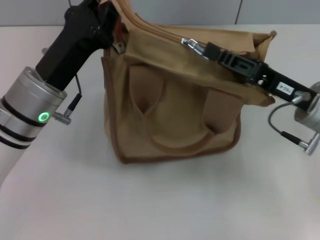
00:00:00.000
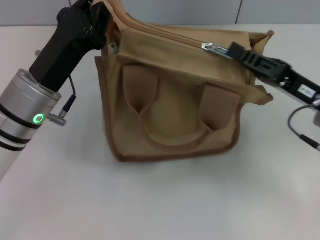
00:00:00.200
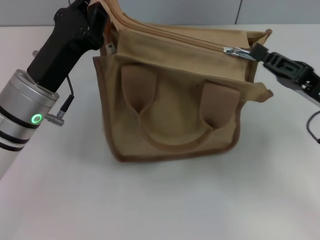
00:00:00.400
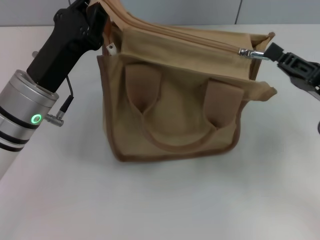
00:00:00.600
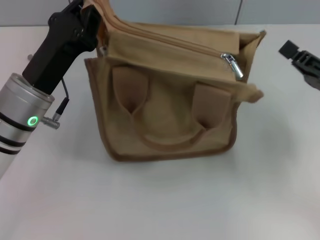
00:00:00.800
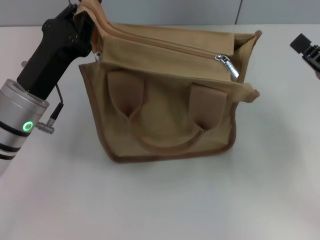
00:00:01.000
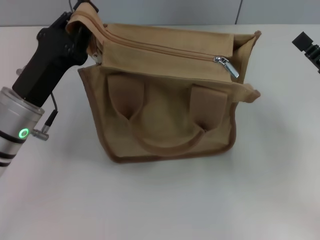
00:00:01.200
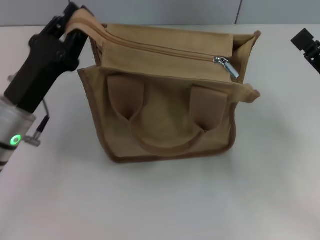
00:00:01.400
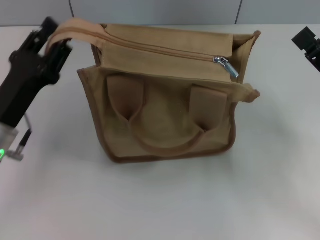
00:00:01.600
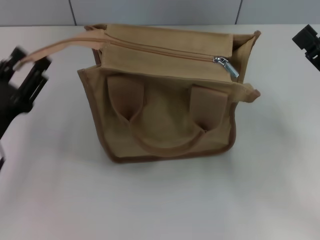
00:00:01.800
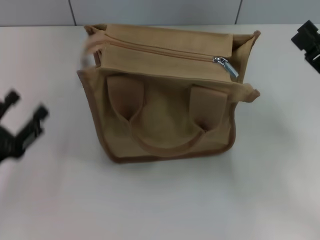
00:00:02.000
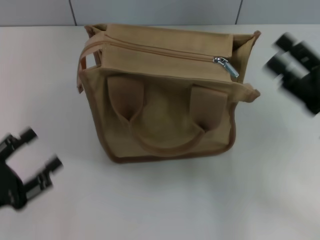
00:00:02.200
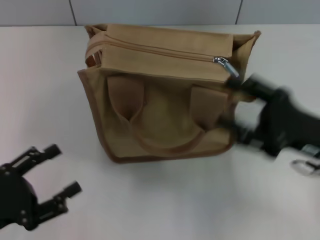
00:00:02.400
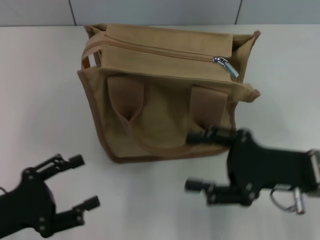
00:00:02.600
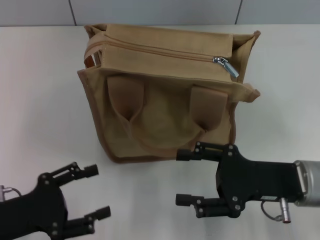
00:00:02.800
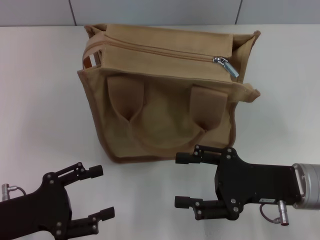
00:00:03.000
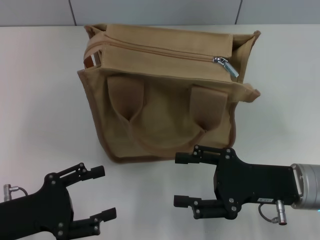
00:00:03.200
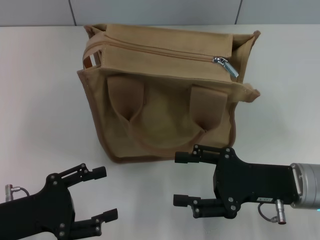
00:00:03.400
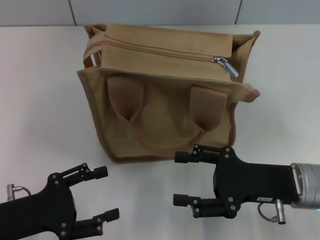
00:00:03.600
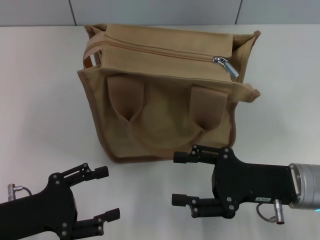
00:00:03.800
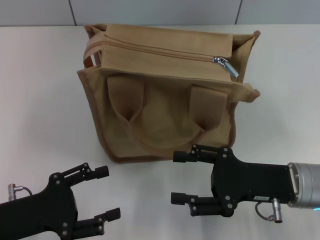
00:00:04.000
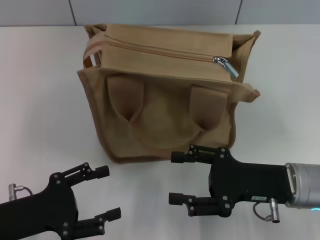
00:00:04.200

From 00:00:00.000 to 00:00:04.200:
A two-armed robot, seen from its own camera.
Step, from 00:00:00.800 to 00:00:01.800: Grab the zipper with your left hand.
From 00:00:00.000 to 00:00:01.400: The right gripper travels to the right by about 5 cm, and opens; the left gripper changes place by about 5 cm.
From 00:00:01.400 to 00:00:02.800: The right gripper heads to the left, covering some 10 cm, and opens up. Meanwhile the left gripper goes some 10 cm backward and to the left, and opens up.
From 00:00:02.800 to 00:00:04.200: Both grippers stay put.

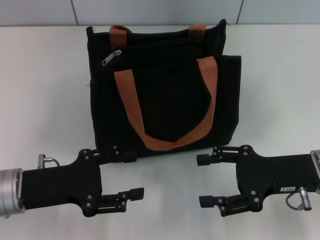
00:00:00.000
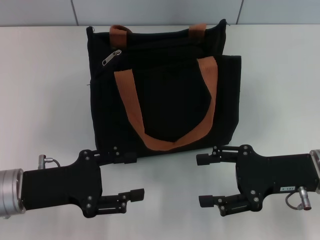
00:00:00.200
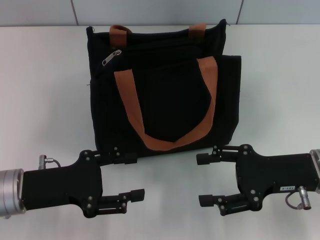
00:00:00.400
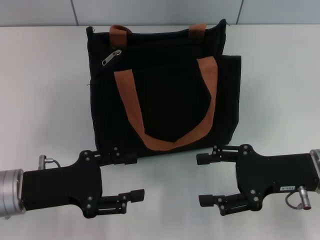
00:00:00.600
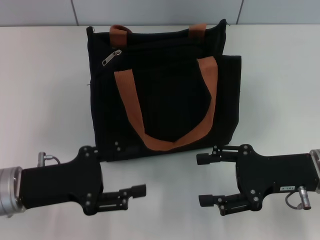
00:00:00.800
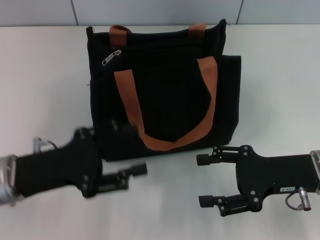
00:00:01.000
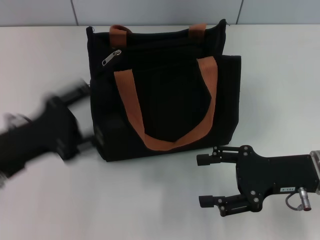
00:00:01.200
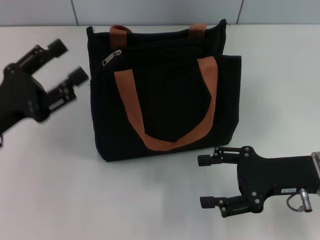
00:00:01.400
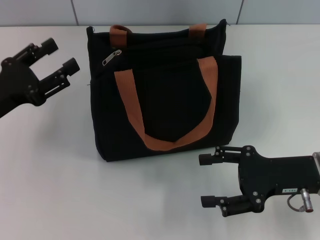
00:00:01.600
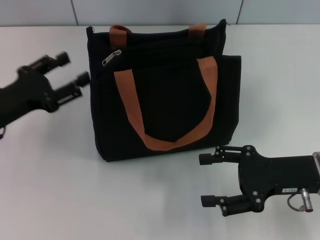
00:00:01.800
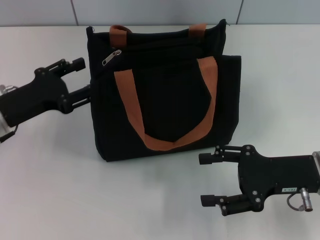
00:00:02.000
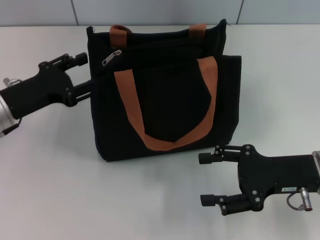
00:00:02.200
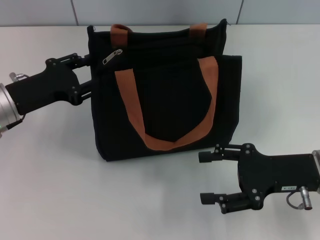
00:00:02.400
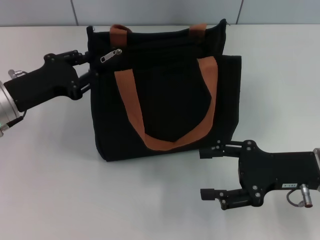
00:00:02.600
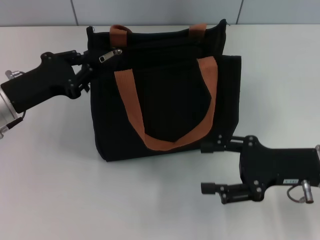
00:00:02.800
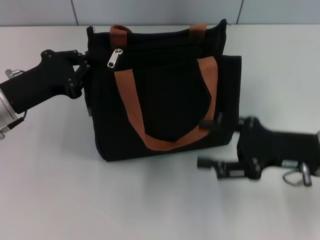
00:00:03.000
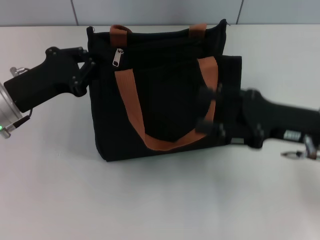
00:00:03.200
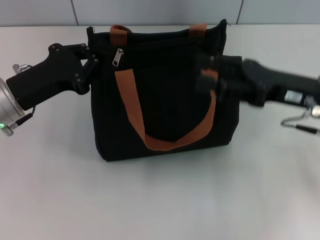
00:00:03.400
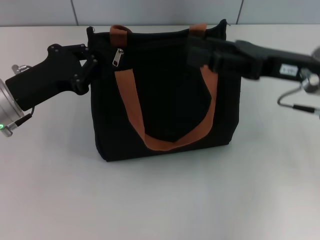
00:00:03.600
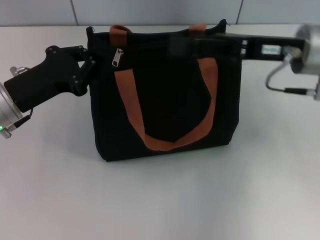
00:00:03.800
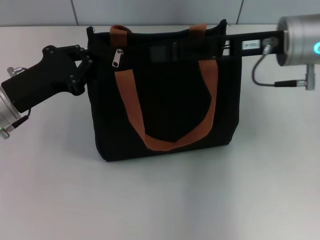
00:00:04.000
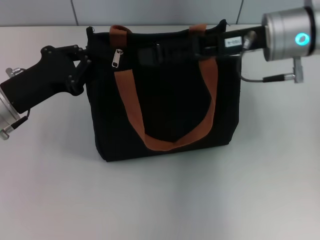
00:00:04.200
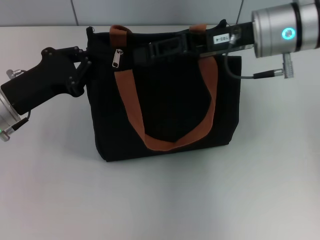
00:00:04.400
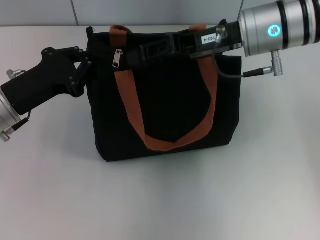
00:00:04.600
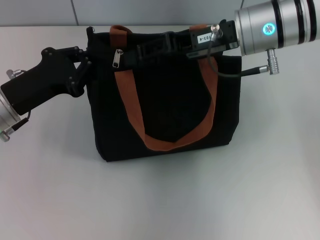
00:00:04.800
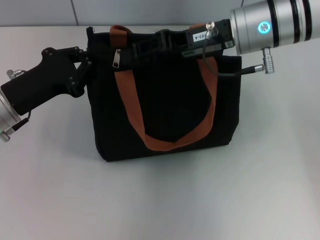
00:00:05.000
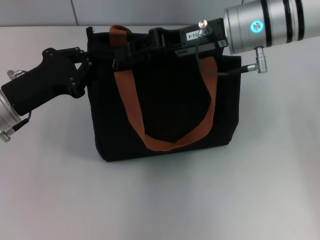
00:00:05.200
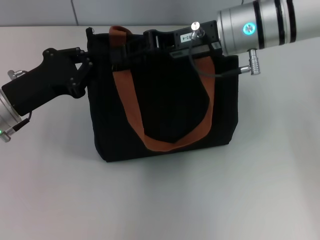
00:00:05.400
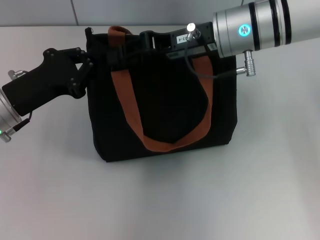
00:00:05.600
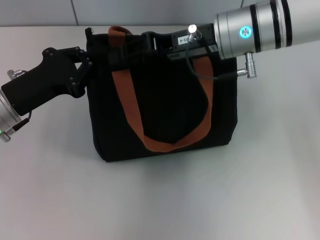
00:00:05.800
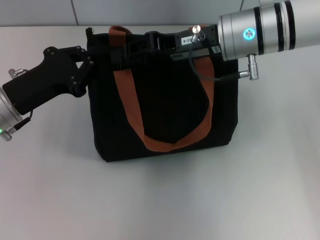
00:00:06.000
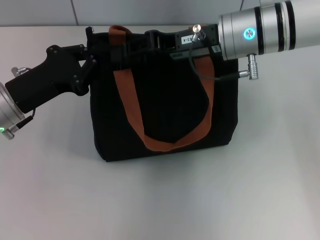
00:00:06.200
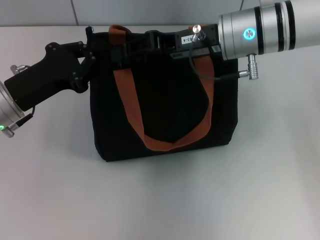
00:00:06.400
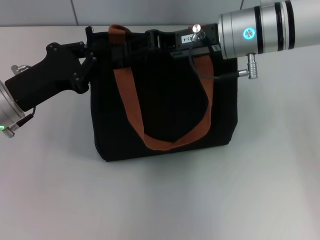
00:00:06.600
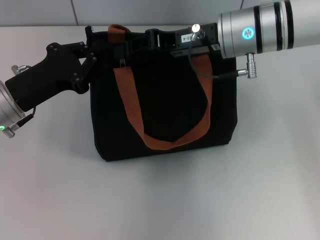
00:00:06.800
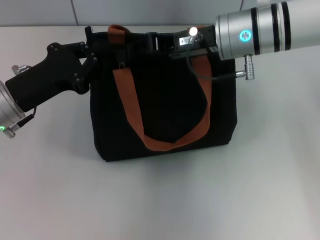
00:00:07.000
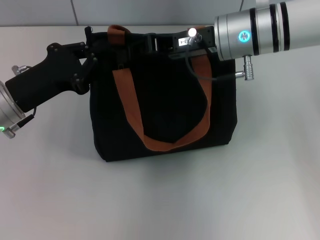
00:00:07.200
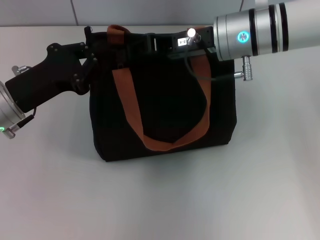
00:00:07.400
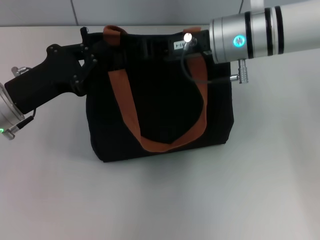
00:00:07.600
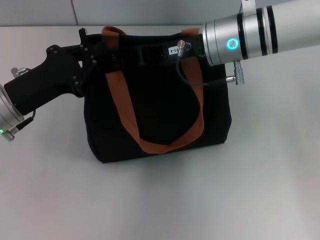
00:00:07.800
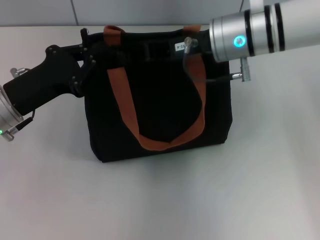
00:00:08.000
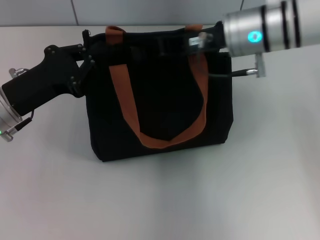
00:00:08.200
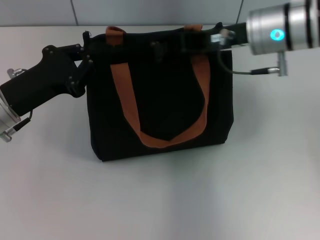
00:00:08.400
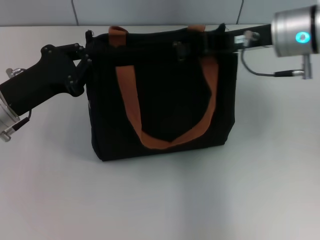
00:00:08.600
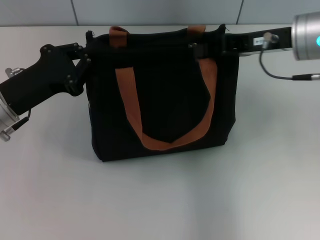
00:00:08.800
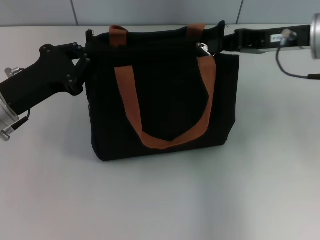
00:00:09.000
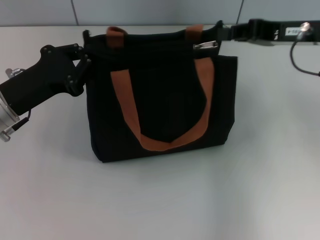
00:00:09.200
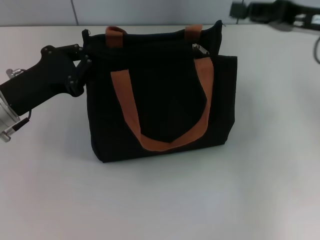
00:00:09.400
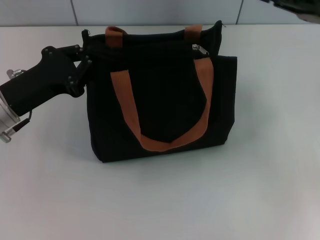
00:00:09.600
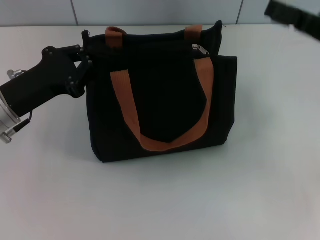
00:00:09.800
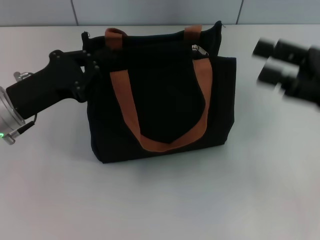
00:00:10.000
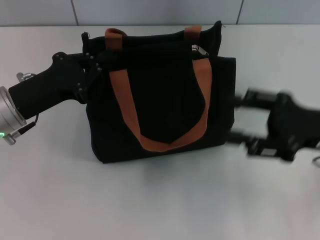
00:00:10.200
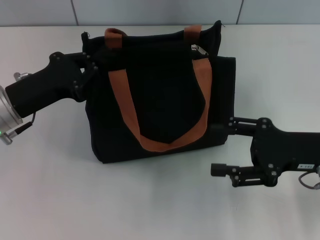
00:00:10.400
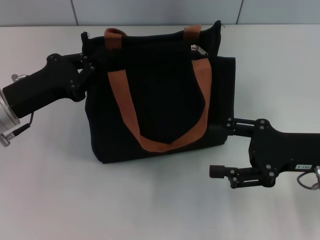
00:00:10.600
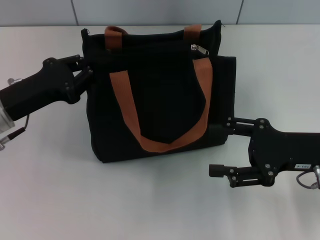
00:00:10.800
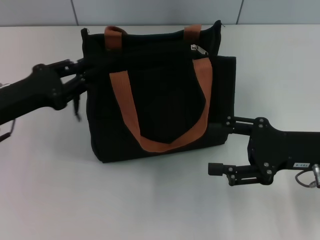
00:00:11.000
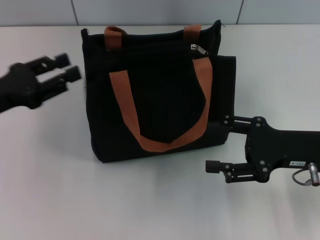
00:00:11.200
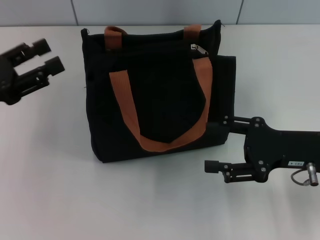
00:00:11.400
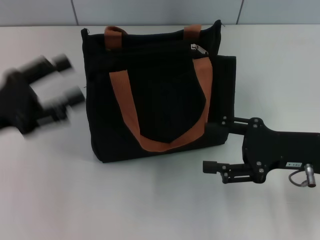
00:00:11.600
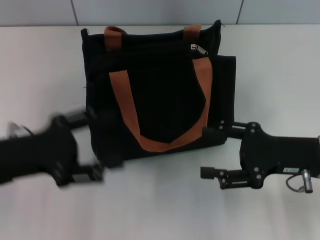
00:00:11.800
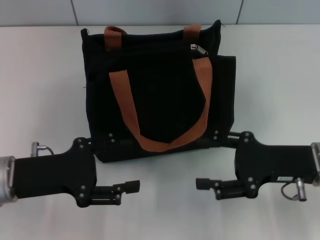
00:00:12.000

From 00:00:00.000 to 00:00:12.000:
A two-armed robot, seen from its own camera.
Step, from 00:00:00.000 to 00:00:09.200: Pull up the zipper with your right hand.
Step, from 00:00:09.400 to 00:00:11.000: Grab the zipper with your left hand.
From 00:00:00.000 to 00:00:01.600: The left gripper is displaced to the left by approximately 5 cm.
From 00:00:01.600 to 00:00:03.000: The left gripper closes up.
From 00:00:03.000 to 00:00:04.400: The right gripper goes some 20 cm forward, upward and to the left.
From 00:00:04.400 to 00:00:07.600: The grippers stay close to where they were, moving slightly.
From 00:00:07.600 to 00:00:09.000: The right gripper heads to the right, covering about 10 cm.
From 00:00:09.000 to 00:00:10.400: The right gripper moves backward and downward, approximately 15 cm, and opens up.
From 00:00:10.400 to 00:00:12.000: The left gripper is displaced backward by approximately 5 cm, and opens up.

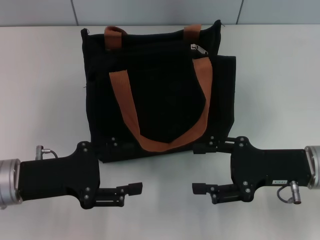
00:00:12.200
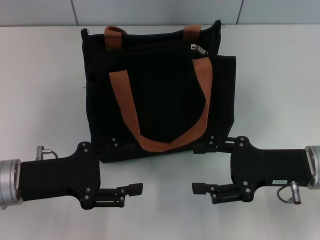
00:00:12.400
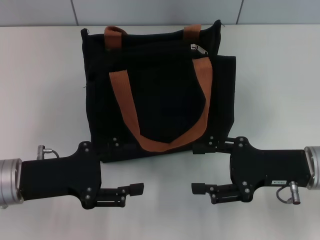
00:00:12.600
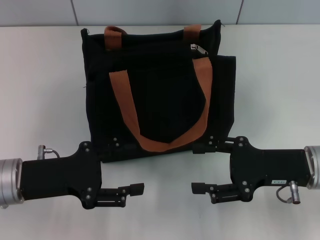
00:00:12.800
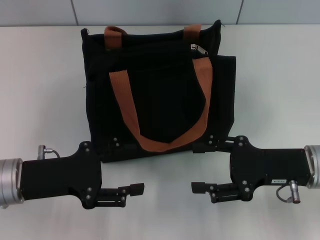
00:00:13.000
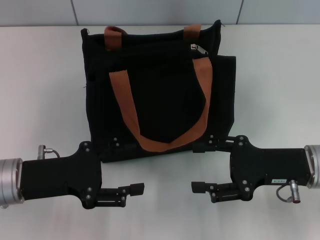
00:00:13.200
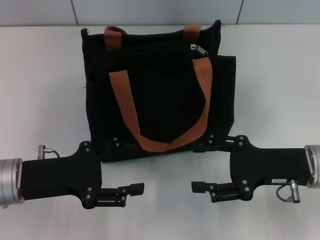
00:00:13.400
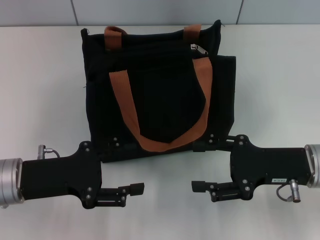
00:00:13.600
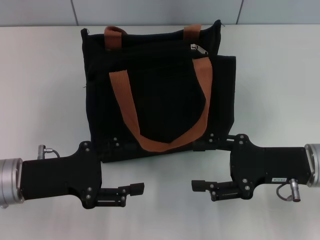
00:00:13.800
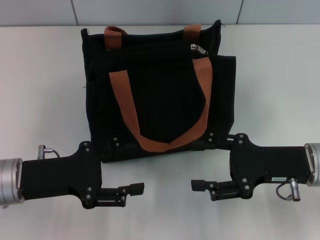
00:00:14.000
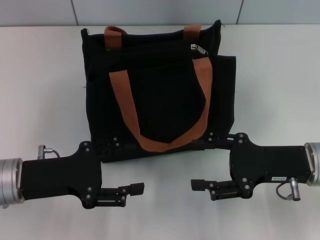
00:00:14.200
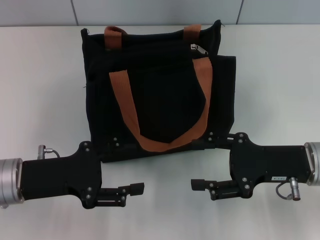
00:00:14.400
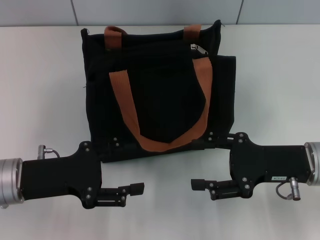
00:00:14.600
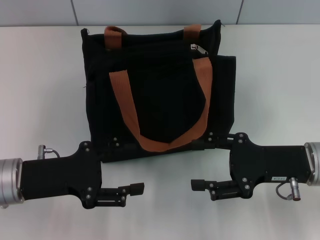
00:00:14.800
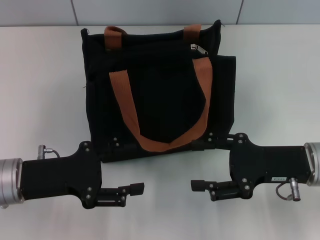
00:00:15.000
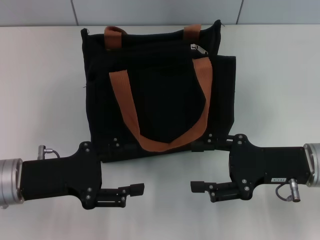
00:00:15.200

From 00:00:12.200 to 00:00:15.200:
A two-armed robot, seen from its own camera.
From 00:00:12.200 to 00:00:15.200: Neither gripper changes place.
